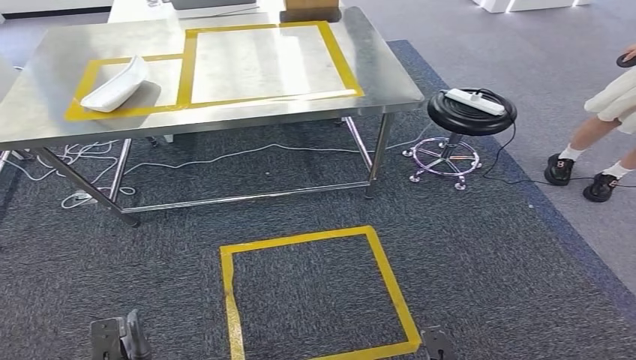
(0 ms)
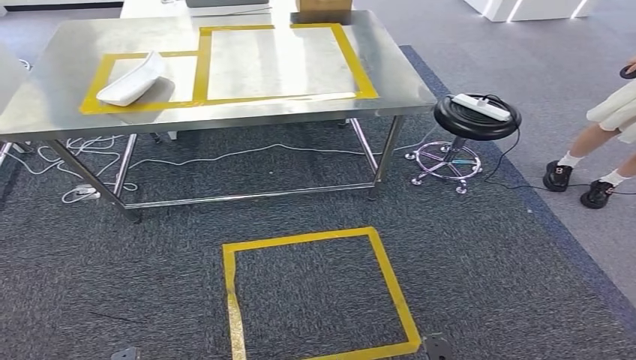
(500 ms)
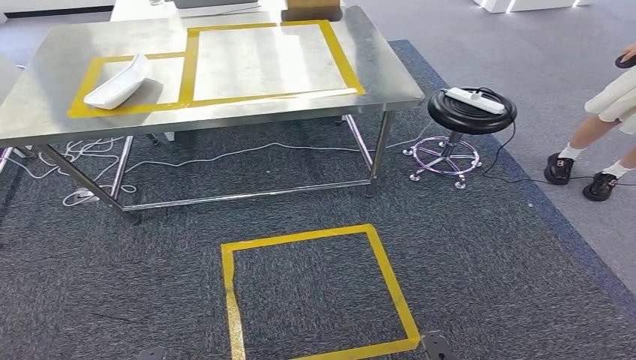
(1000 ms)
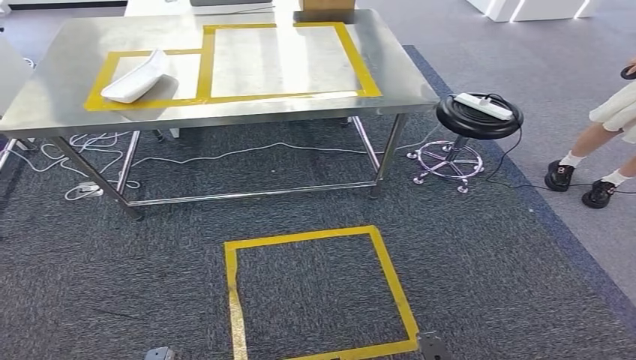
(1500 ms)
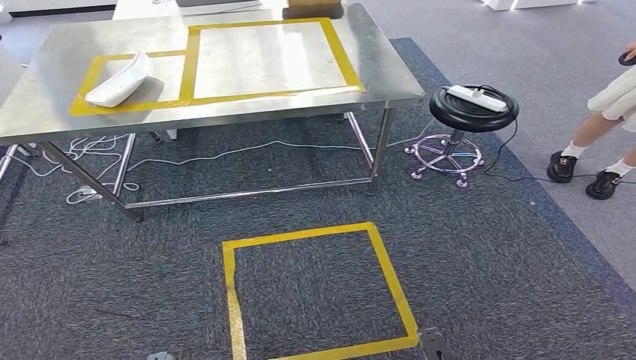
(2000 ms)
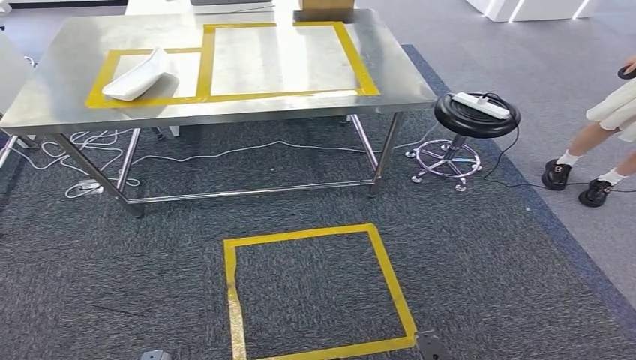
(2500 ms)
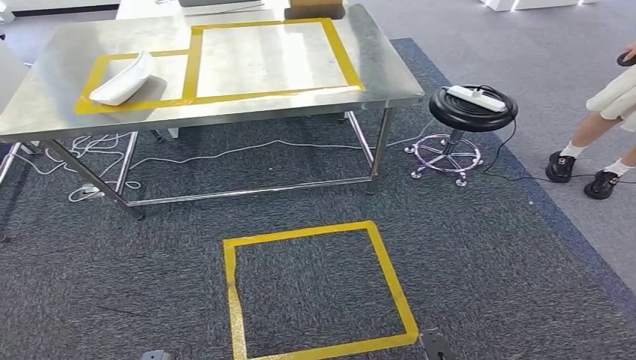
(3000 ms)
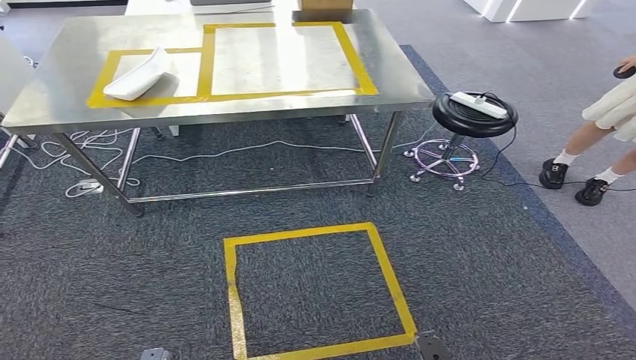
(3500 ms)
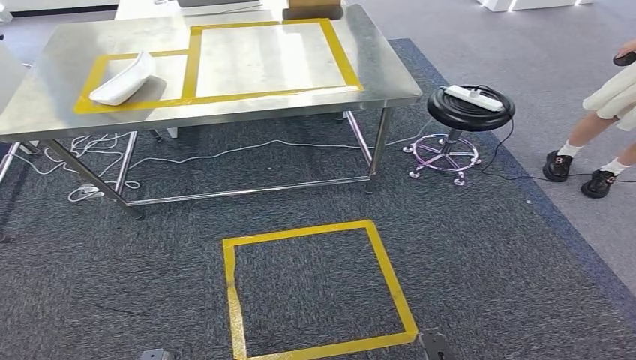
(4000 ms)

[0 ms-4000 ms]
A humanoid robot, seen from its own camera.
Step, 0 ms to 4000 ms: Move to the initial position at the workbench.
0 ms to 2000 ms: The left hand is displaced backward by some 10 cm.
2000 ms to 4000 ms: There are only small adjustments of the hands.
